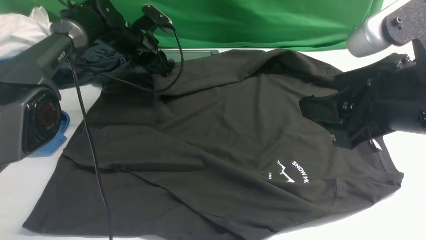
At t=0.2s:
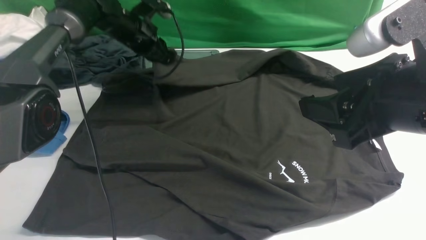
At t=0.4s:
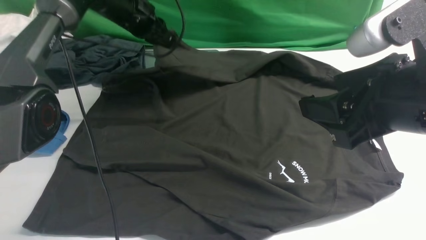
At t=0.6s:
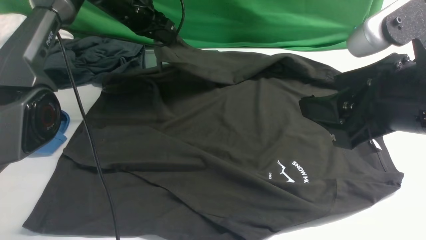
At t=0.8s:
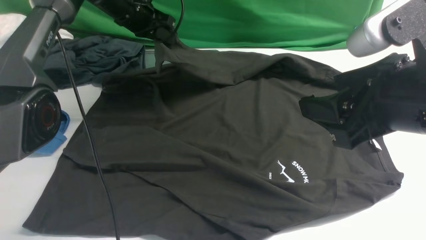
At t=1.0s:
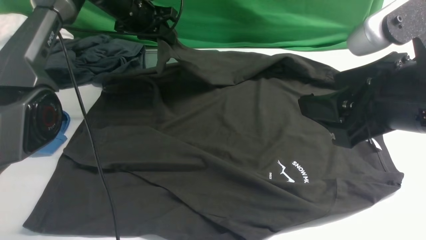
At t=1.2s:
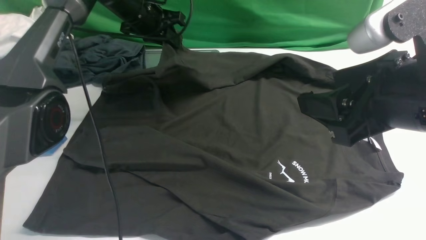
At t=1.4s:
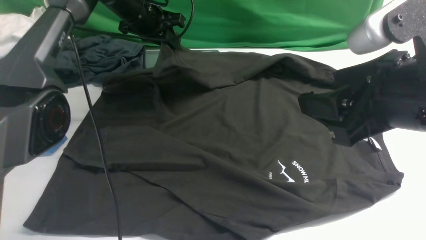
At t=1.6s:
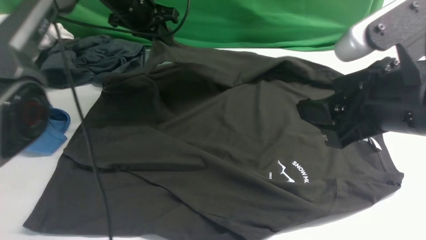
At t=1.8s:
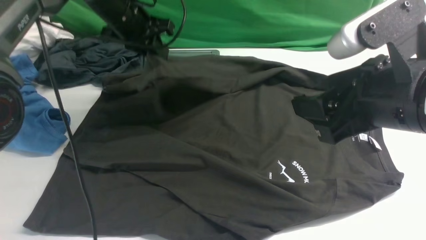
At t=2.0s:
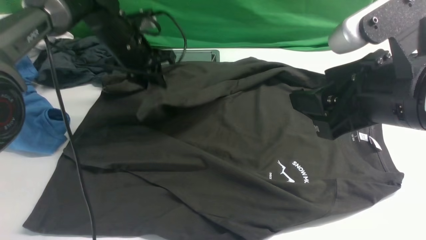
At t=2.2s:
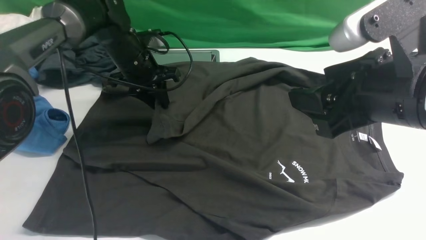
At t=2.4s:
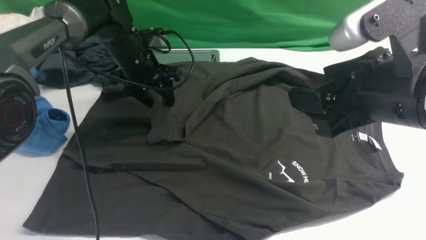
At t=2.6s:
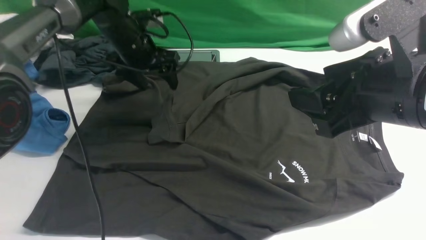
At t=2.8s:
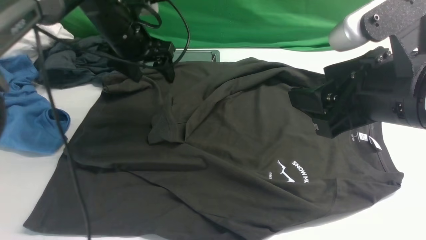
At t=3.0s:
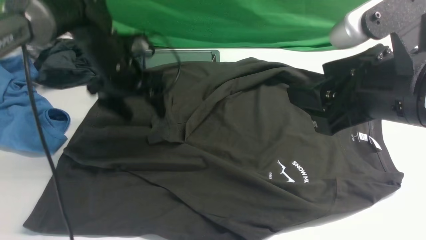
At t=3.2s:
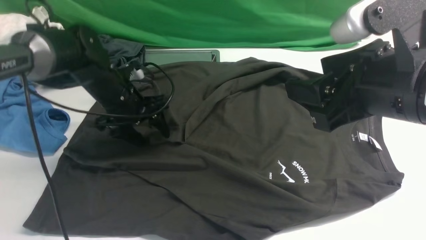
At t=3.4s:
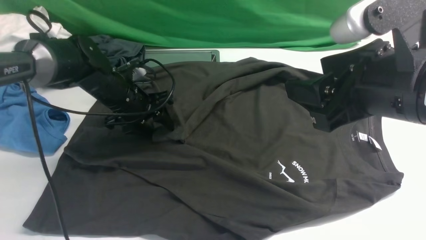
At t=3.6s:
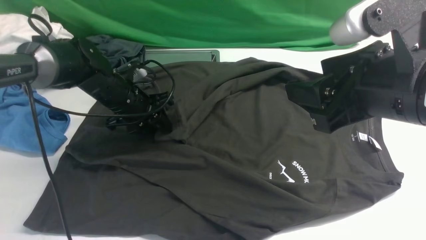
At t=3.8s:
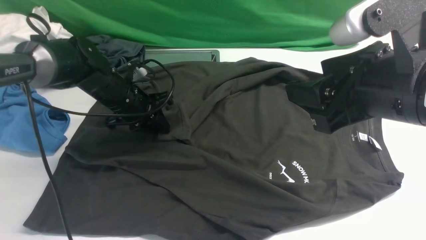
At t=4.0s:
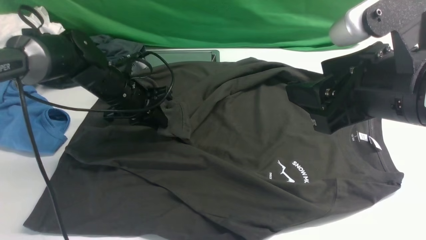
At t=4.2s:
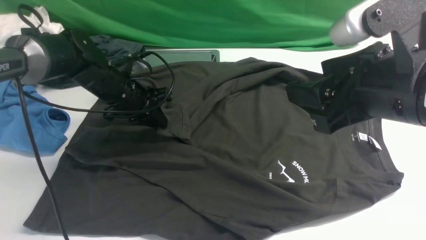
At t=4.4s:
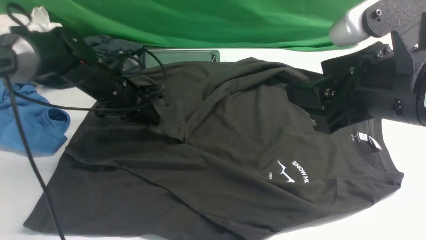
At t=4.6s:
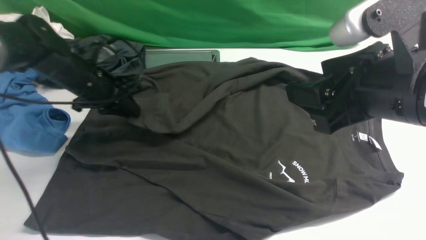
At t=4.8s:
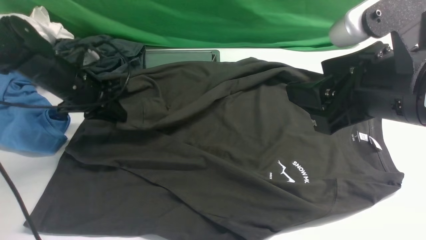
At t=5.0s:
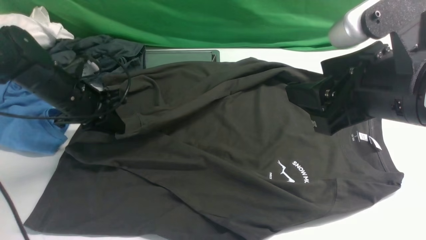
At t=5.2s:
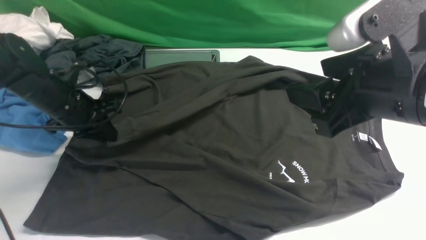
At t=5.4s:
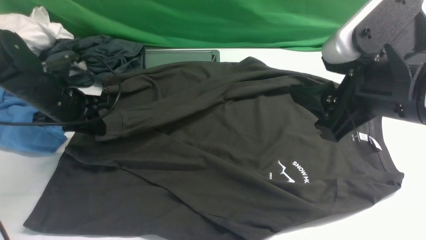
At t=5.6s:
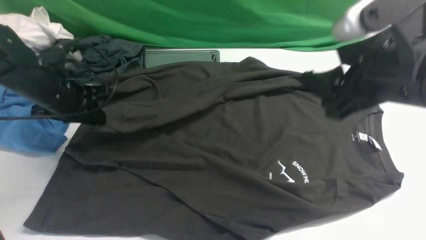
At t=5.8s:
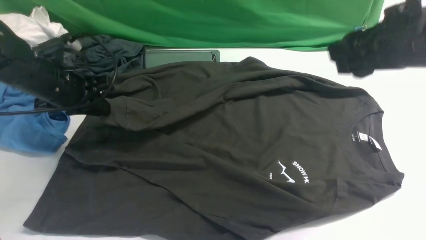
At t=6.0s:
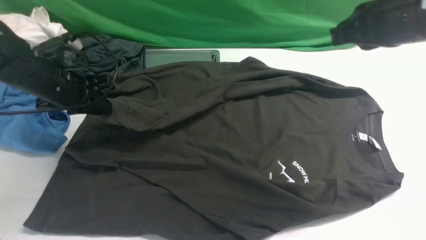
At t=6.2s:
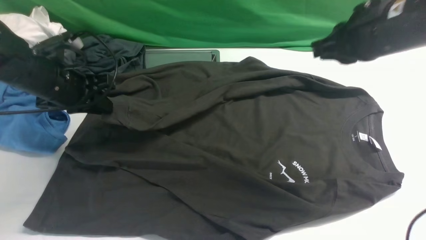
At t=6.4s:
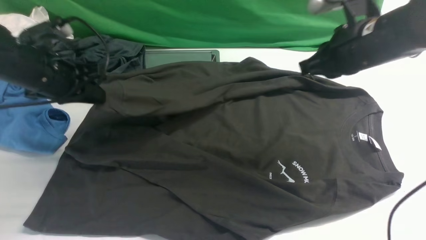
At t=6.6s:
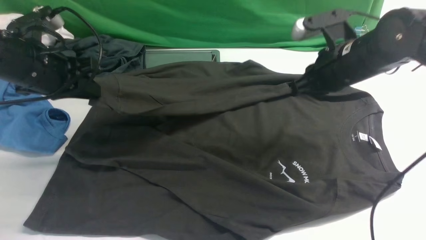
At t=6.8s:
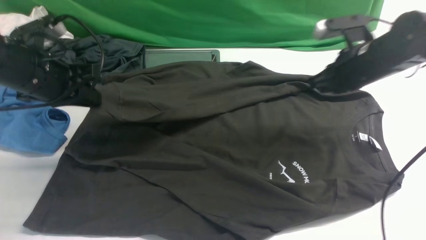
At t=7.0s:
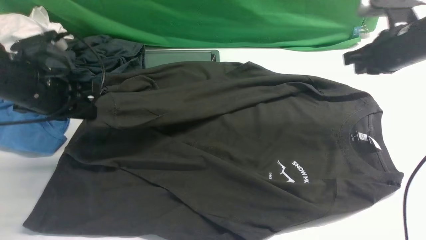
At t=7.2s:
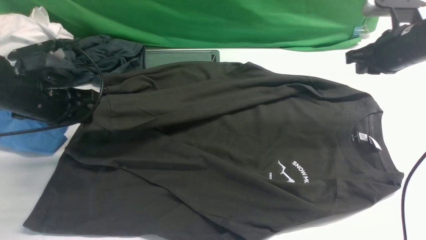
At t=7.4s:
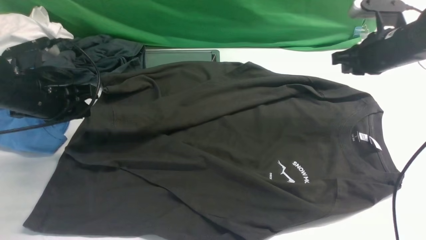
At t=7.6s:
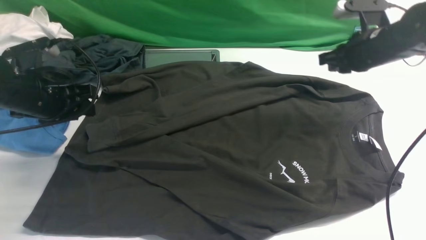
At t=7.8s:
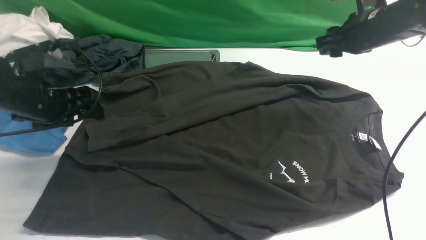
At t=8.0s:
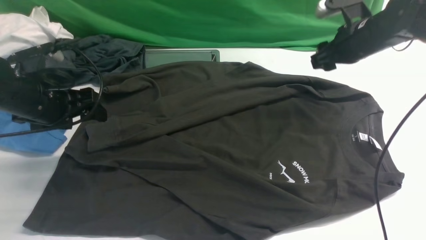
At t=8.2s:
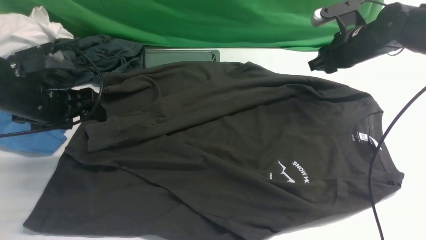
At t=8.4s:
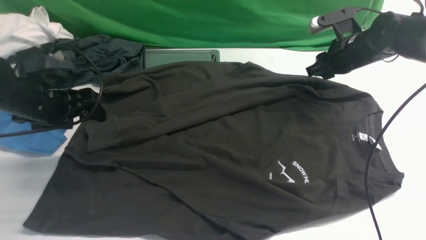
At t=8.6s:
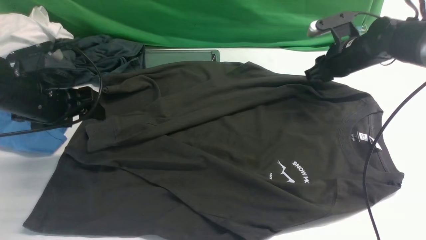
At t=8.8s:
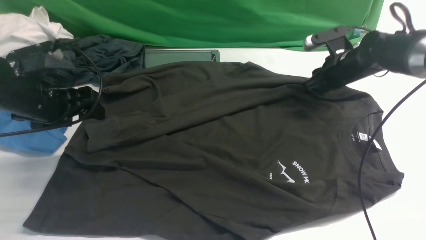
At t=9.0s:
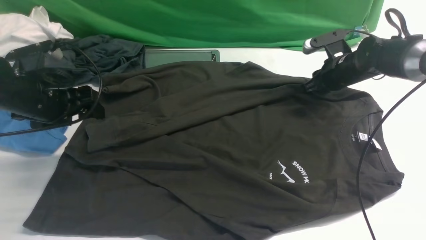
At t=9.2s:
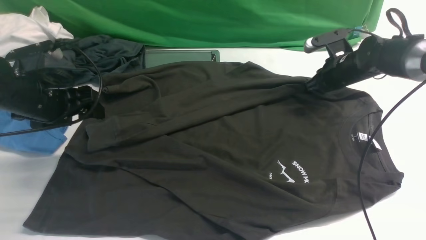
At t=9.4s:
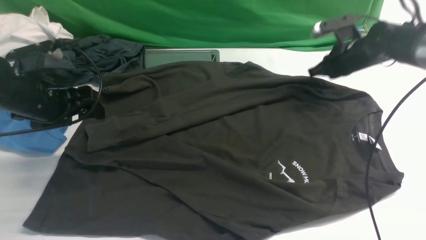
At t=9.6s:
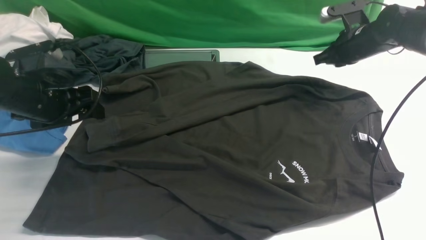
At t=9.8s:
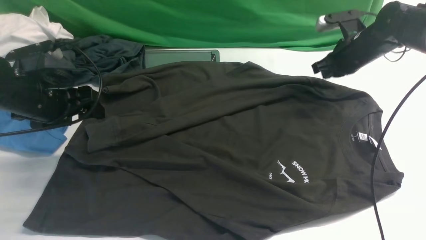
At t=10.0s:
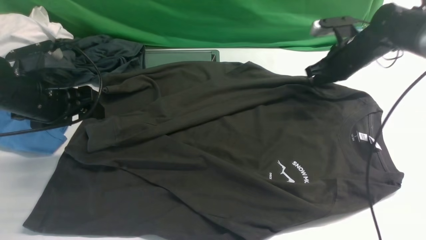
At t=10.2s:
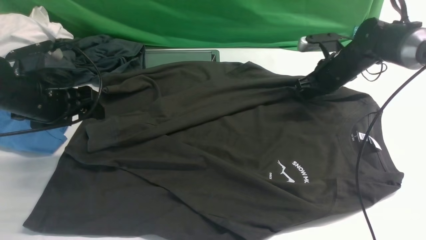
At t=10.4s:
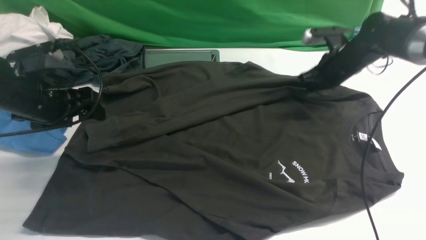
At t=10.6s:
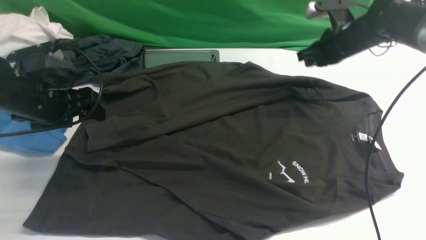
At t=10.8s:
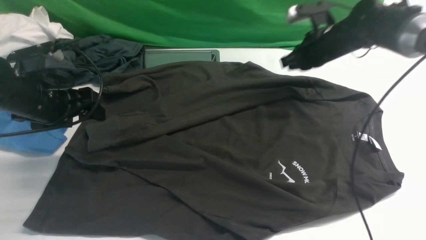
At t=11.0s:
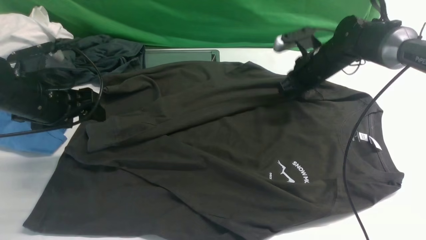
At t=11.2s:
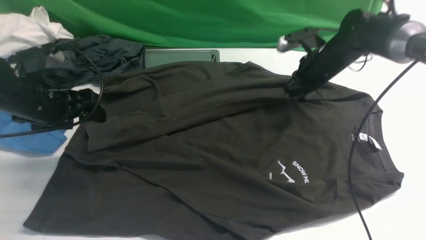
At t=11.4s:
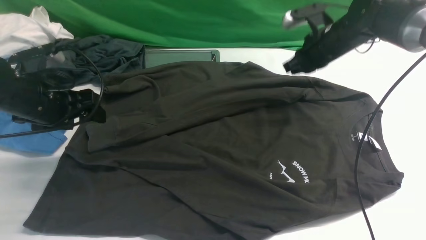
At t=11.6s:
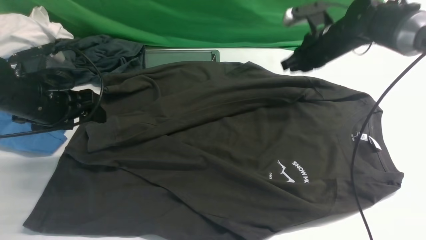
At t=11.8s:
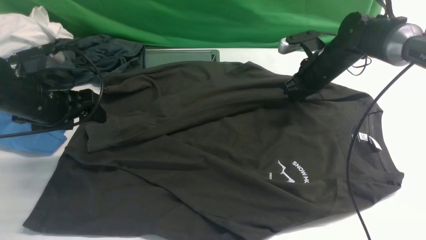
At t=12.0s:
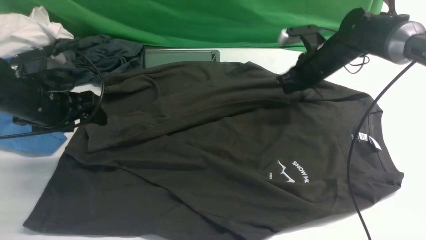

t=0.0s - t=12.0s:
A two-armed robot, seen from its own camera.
Step, t=0.4s - t=8.0s: use the left arm to drag and drop the cuff onto the cuff closest to the left arm.
t=0.0s - t=1.6s: The left gripper goes some 10 cm upward.
t=1.6s - t=3.0s: The left gripper is displaced backward and downward by approximately 10 cm, and opens up.
t=3.0s - t=4.4s: The left gripper closes up.
t=4.4s - t=6.0s: The right gripper travels forward by roughly 10 cm, and closes. Meanwhile the left gripper moves roughly 10 cm.
t=6.0s - t=7.6s: The left gripper opens its fingers, while the right gripper moves forward, downward and to the right, roughly 20 cm.
t=7.6s - t=9.0s: The left gripper opens its fingers, while the right gripper travels downward and forward by roughly 10 cm.
t=9.0s - t=10.4s: The grippers stay close to where they were, moving slightly.
t=10.4s - t=12.0s: The grippers move only a little.

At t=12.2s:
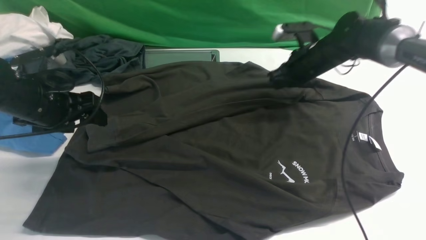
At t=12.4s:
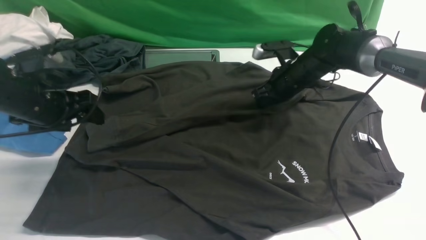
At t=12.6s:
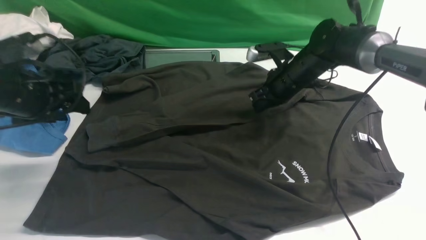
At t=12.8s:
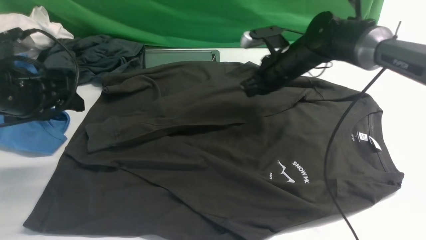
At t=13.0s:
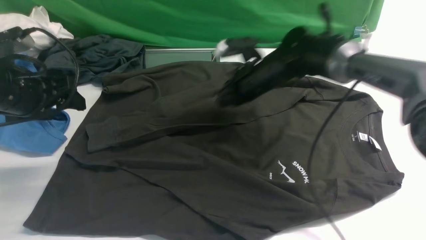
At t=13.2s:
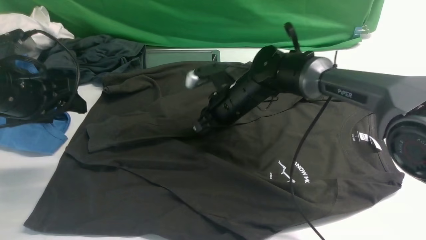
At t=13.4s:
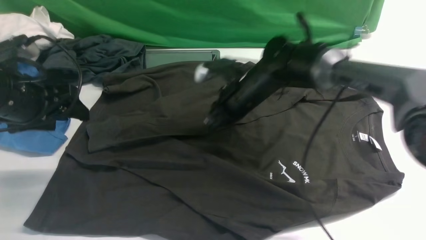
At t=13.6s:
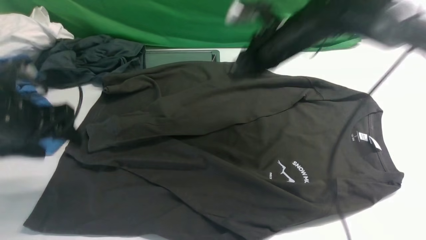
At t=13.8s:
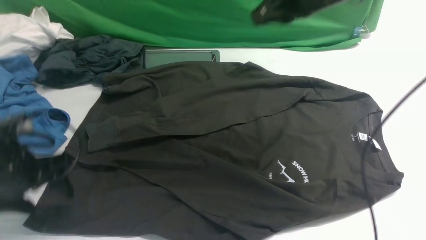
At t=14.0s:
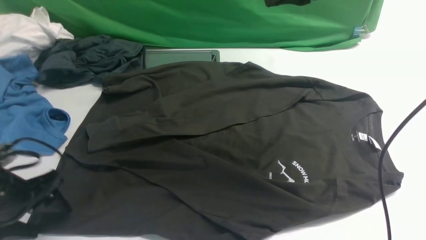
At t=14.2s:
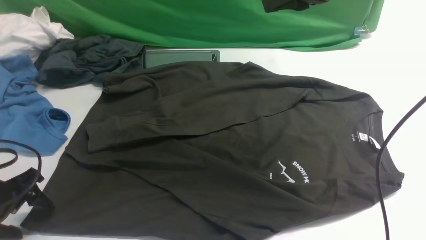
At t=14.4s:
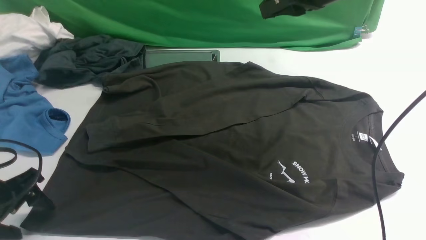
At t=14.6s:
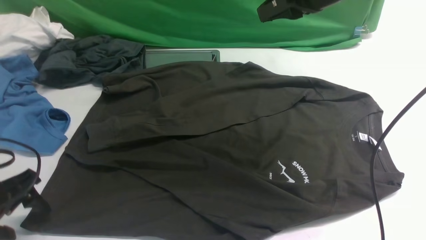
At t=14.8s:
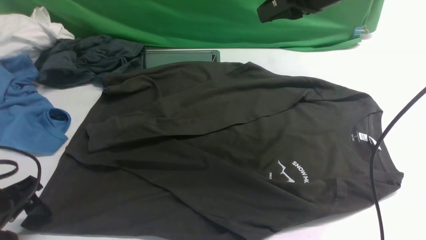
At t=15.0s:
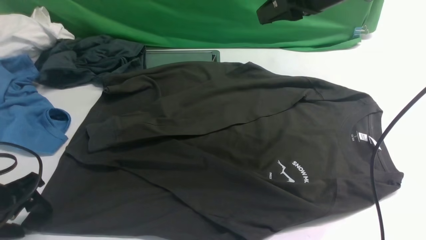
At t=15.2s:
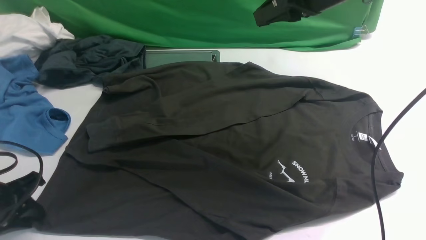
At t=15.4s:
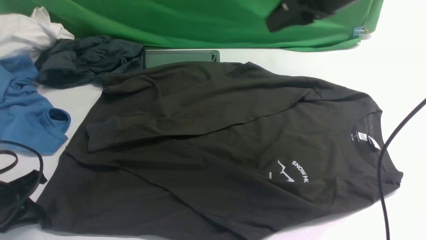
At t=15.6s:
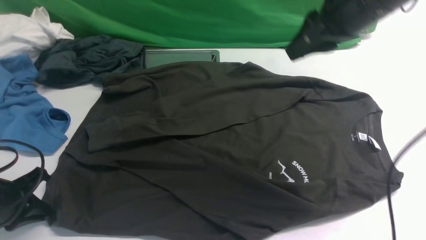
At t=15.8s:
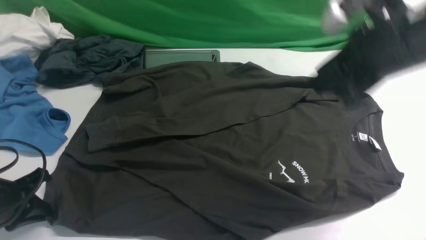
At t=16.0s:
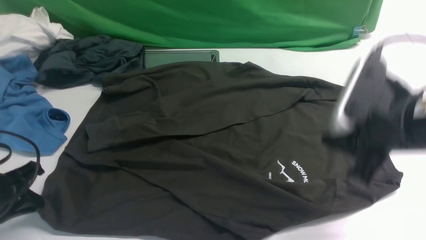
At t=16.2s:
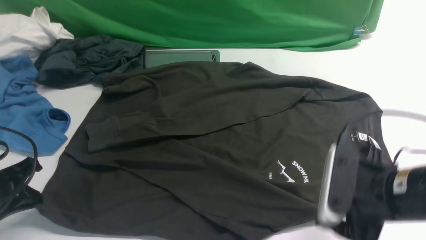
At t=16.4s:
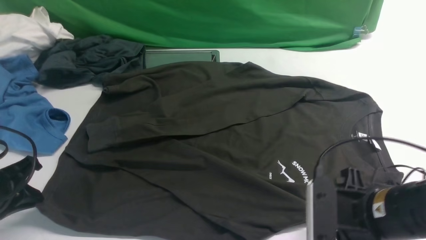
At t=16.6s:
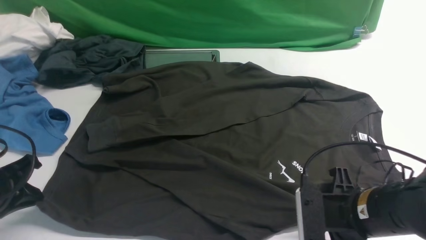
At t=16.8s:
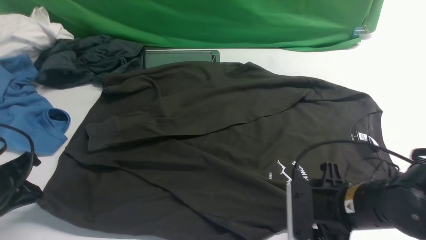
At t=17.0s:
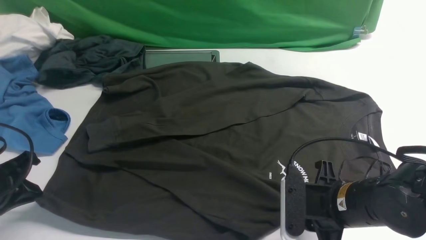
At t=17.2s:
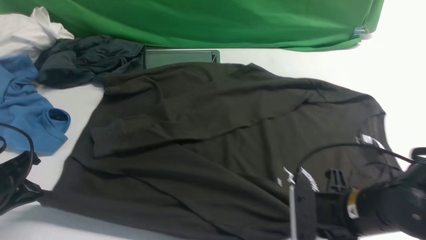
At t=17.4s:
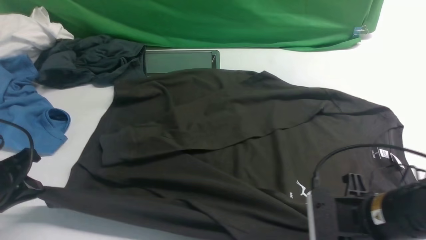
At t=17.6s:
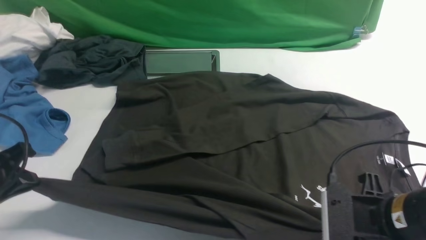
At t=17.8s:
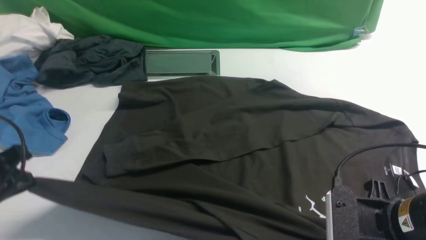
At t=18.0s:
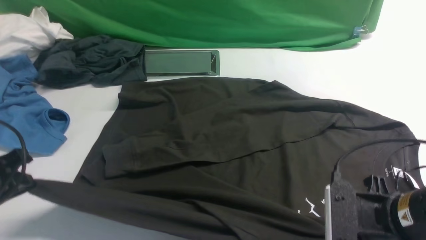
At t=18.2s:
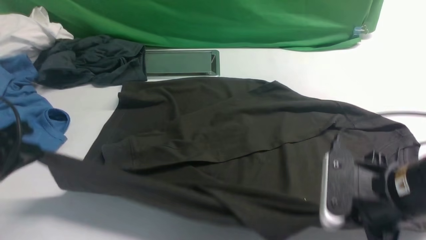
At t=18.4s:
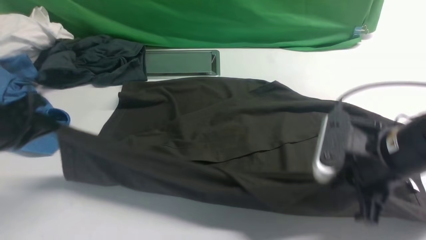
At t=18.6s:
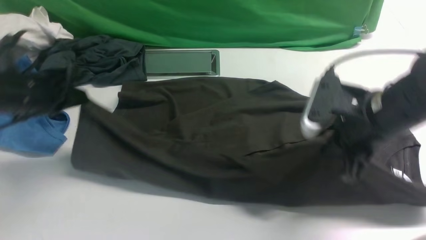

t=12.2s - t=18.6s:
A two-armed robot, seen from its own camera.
Step, t=12.2s - t=18.0s: use both arms simultaneously to clamp the lower edge of the clothing fabric.
t=12.2s - t=13.8s: The left gripper moves backward, some 10 cm, while the right gripper goes roughly 20 cm upward and backward.
t=13.8s - t=15.4s: The left gripper ends up about 5 cm from where it was, and closes.
t=15.4s - t=17.0s: The right gripper heads downward and backward, covering some 30 cm, and opens, then closes again.
t=17.0s - t=18.6s: The right gripper shifts approximately 15 cm upward and forward. Meanwhile the left gripper is displaced forward and upward by some 15 cm.
